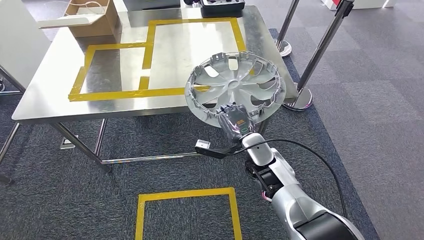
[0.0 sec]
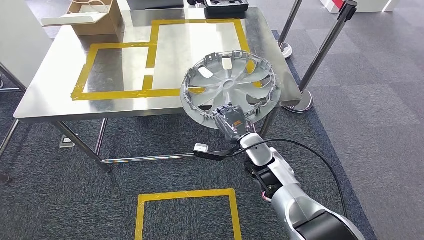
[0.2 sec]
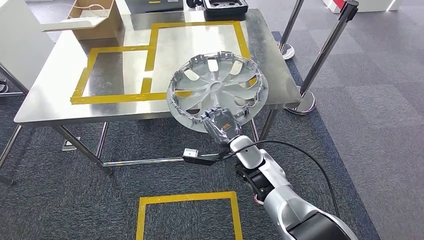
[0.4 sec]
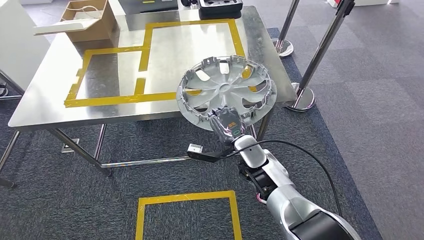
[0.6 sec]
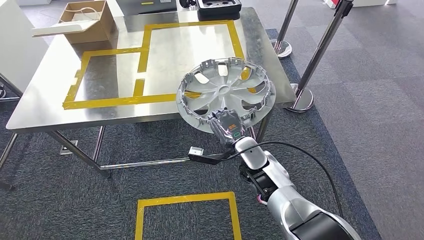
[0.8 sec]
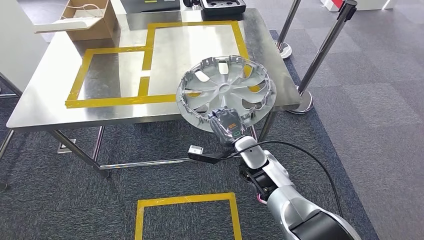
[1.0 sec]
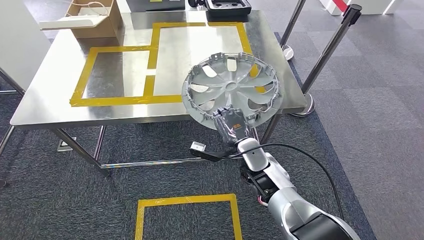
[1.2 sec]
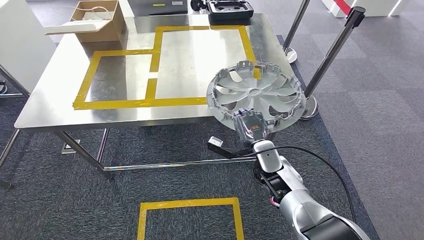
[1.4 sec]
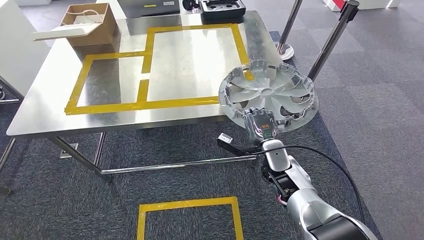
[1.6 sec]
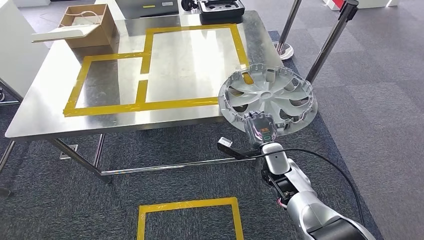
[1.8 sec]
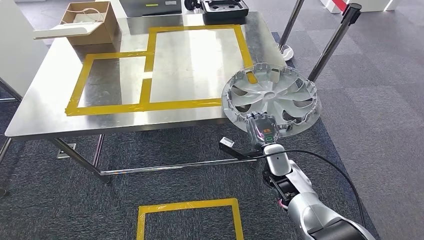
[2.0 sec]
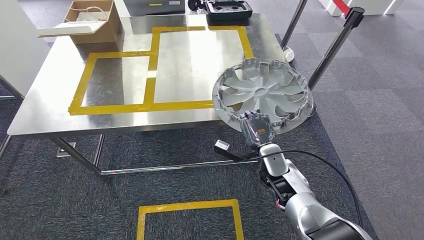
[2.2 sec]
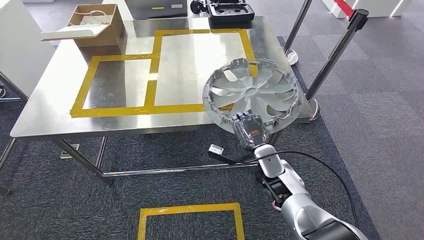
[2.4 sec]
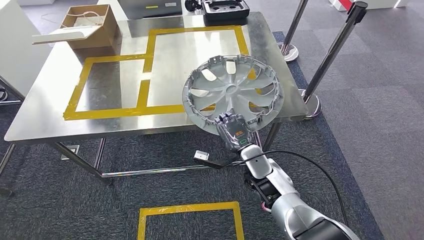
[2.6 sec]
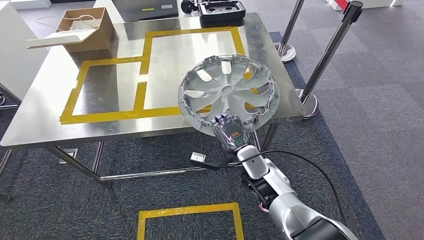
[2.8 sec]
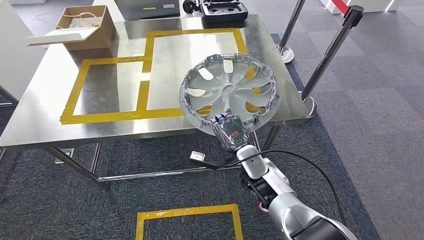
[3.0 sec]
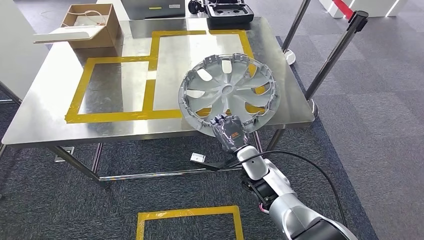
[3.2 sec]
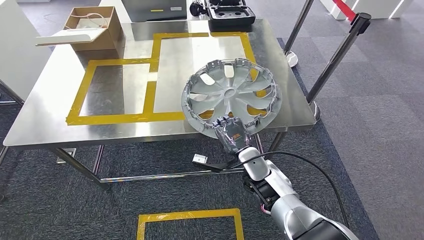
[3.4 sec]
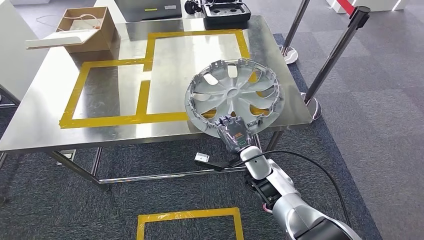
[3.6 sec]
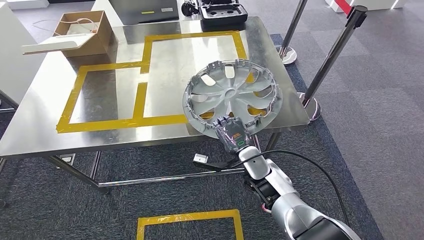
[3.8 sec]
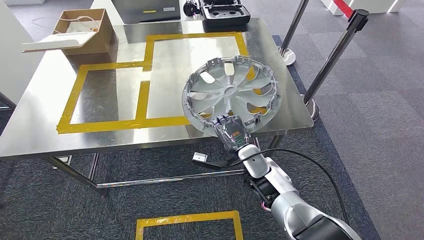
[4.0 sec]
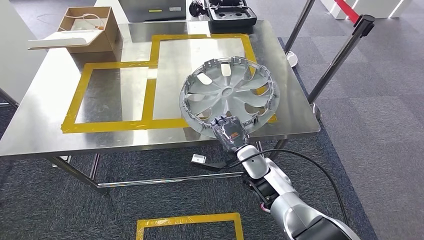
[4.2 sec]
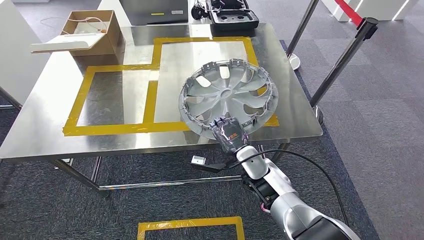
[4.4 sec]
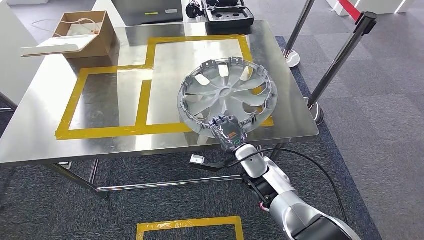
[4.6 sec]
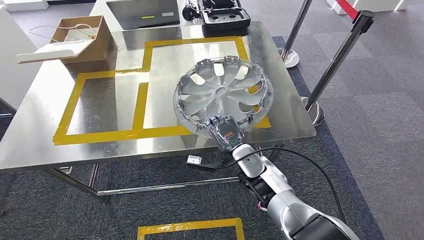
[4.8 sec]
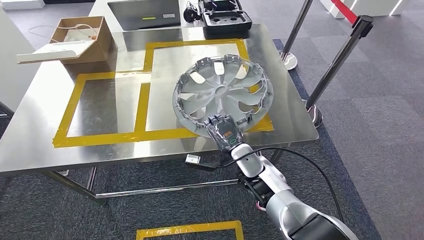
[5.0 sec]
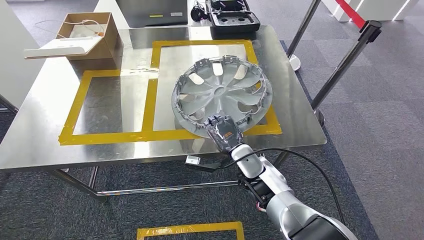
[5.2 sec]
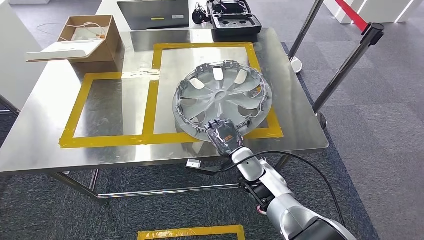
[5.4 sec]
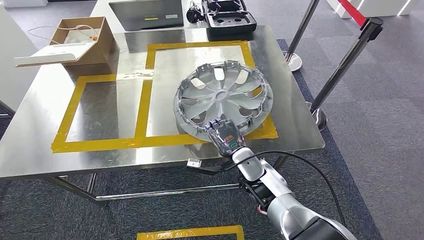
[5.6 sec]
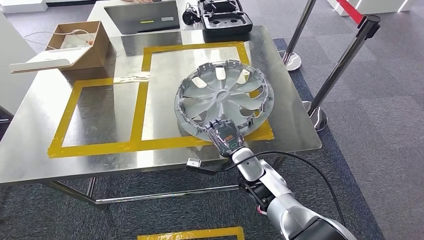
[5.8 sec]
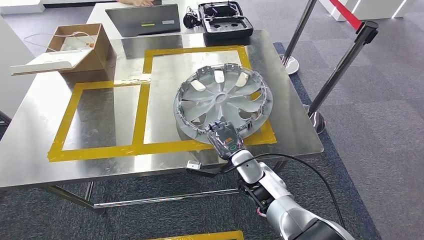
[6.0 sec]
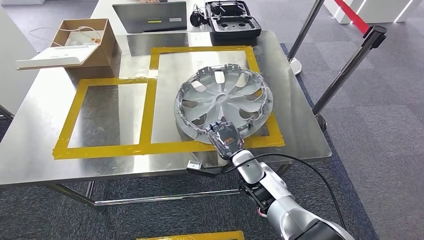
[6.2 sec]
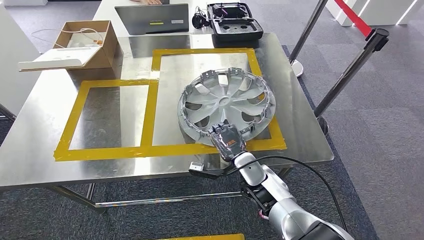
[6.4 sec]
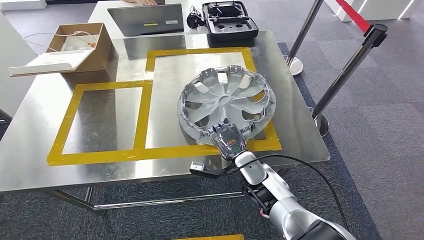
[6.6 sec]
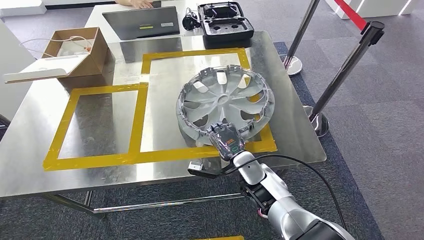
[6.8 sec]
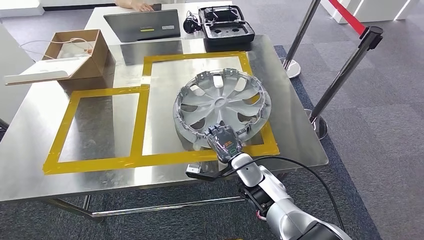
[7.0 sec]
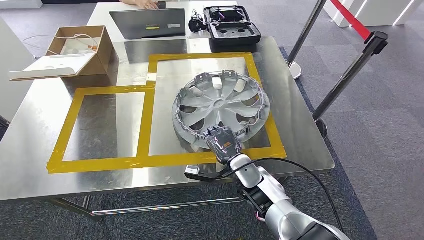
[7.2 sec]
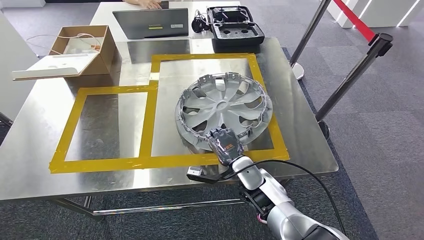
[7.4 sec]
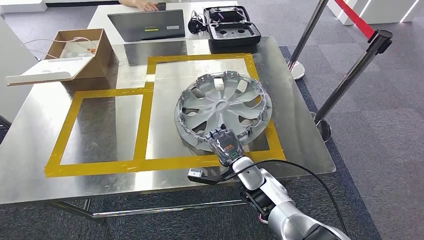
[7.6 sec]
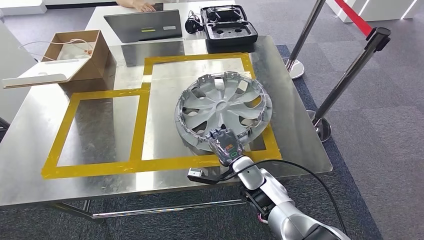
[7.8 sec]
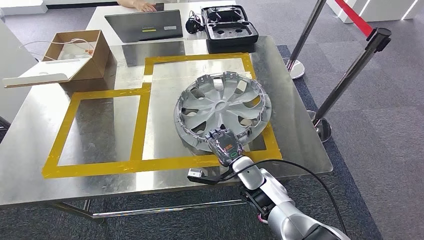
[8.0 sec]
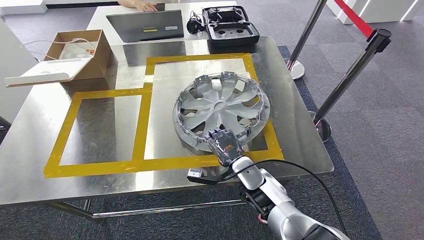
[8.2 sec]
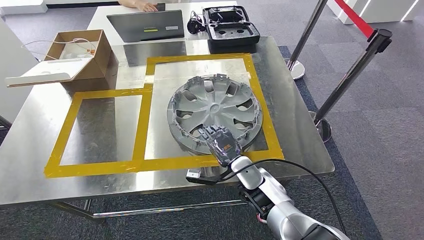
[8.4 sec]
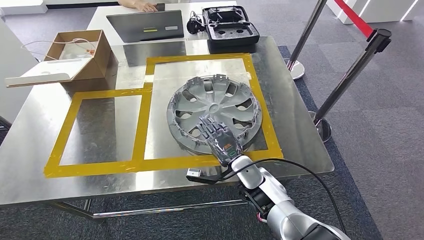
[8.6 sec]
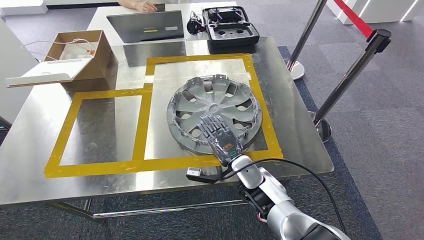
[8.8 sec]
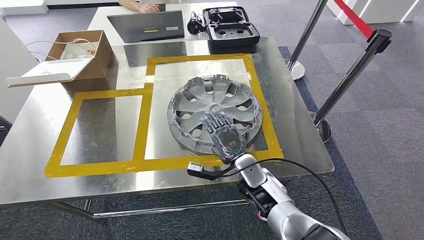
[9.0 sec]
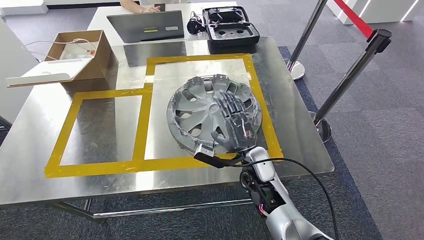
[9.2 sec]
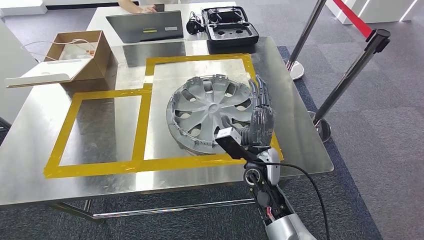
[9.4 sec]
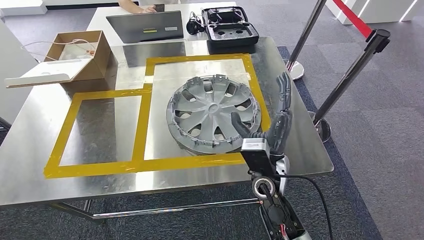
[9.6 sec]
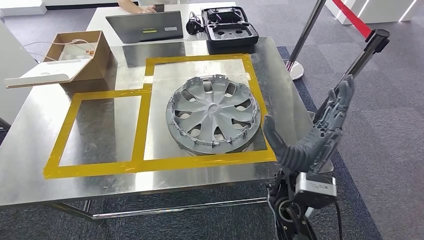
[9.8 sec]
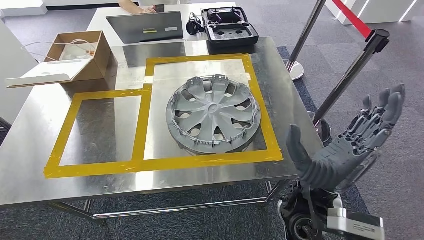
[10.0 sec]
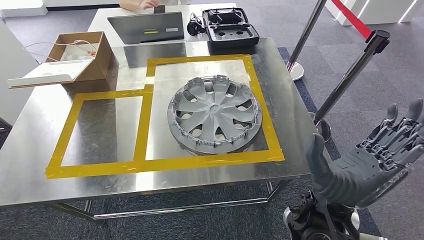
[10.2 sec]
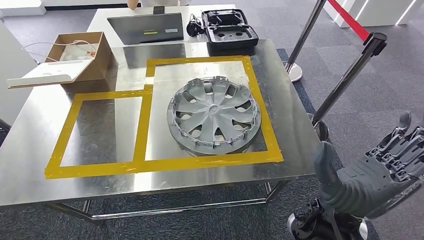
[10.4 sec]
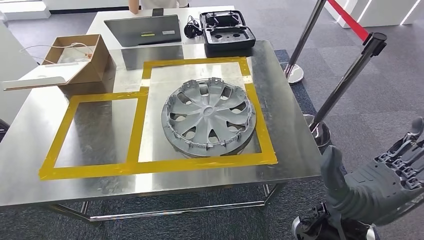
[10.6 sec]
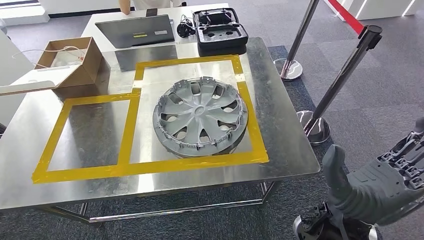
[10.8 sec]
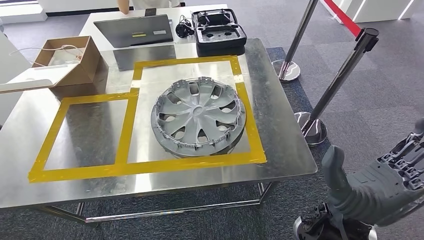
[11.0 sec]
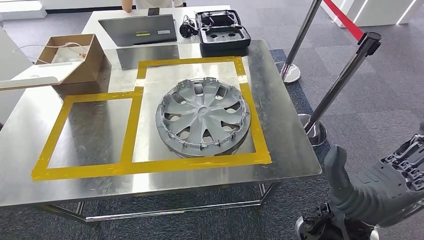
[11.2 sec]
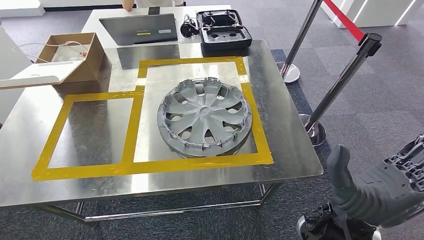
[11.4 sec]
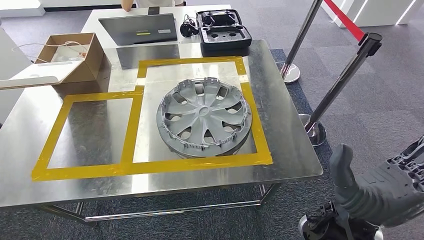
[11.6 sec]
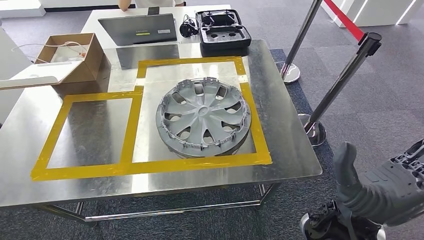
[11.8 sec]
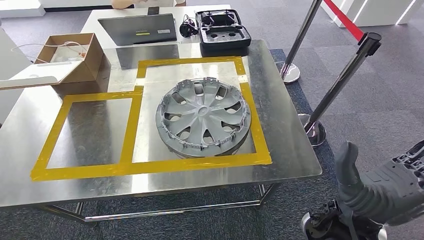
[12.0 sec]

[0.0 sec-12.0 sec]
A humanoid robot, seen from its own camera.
Step, 0.0 sec to 3.0 sec: Move the large material to the workbench.
Step, 3.2 sec to 9.8 sec: Insert the large material into the corresponding slot on the workbench.
7.6 sec to 9.0 sec: The hands move only a little.
